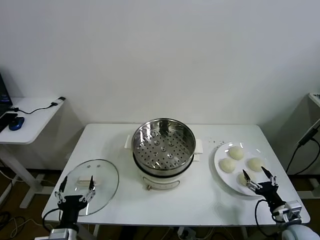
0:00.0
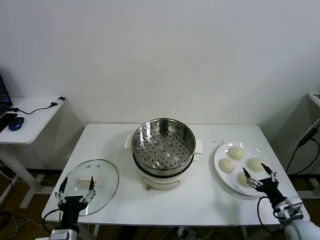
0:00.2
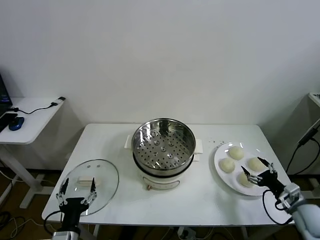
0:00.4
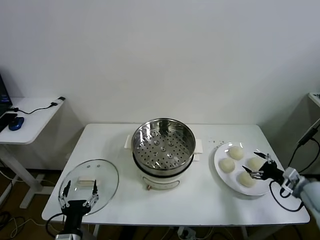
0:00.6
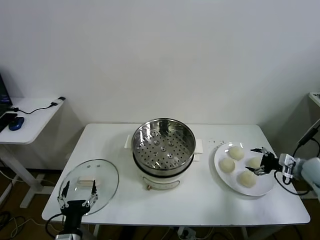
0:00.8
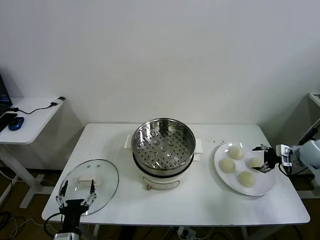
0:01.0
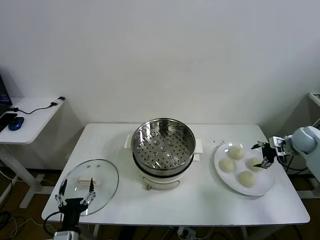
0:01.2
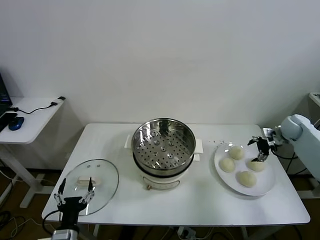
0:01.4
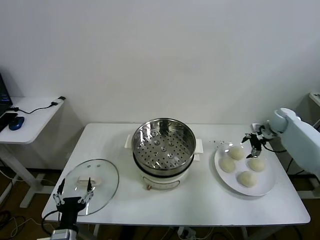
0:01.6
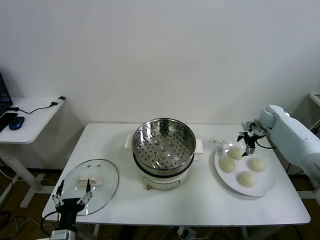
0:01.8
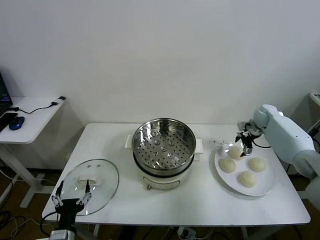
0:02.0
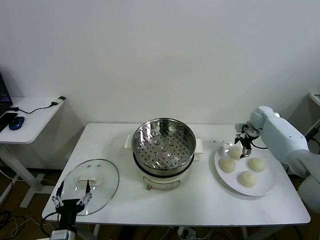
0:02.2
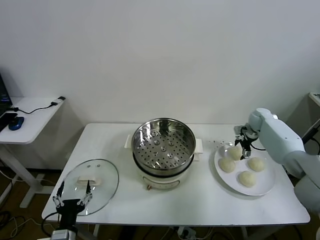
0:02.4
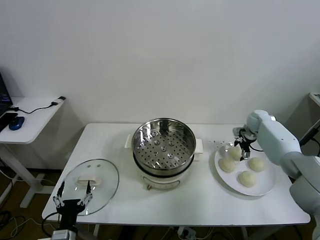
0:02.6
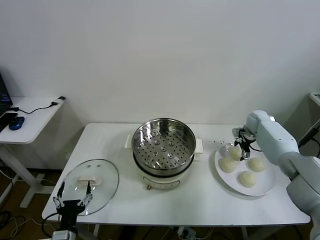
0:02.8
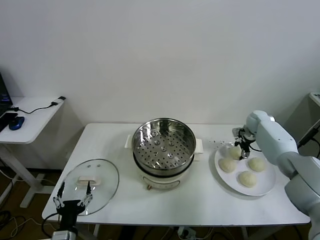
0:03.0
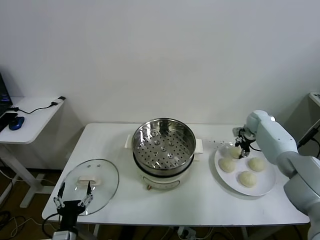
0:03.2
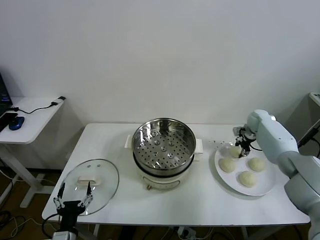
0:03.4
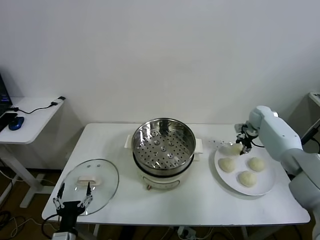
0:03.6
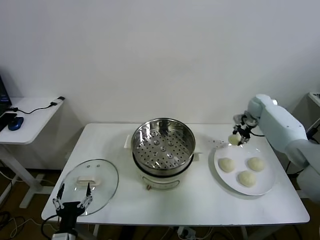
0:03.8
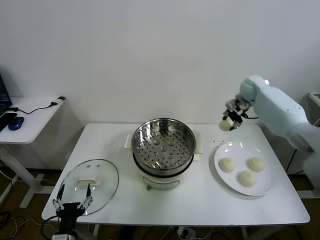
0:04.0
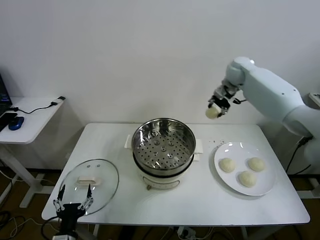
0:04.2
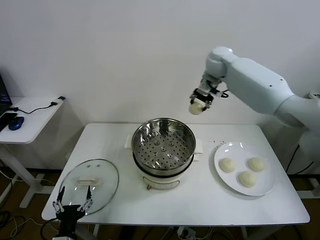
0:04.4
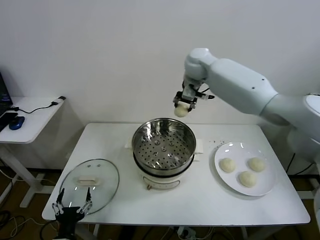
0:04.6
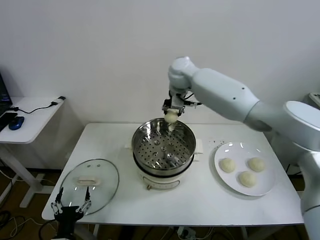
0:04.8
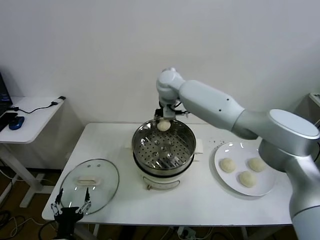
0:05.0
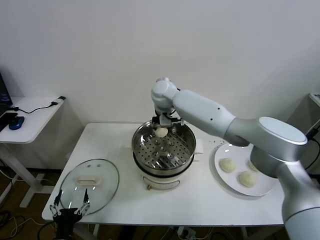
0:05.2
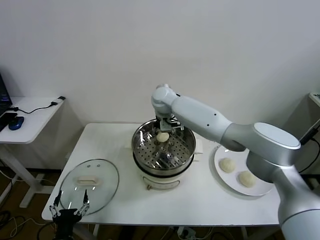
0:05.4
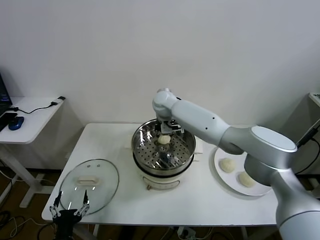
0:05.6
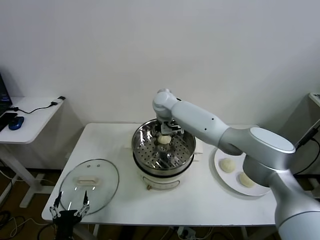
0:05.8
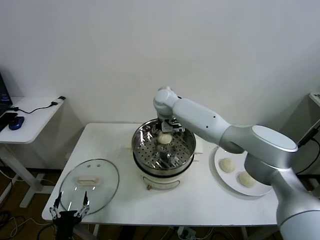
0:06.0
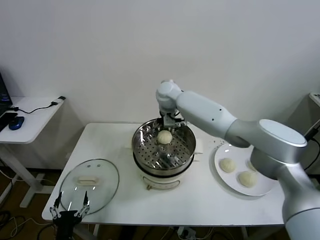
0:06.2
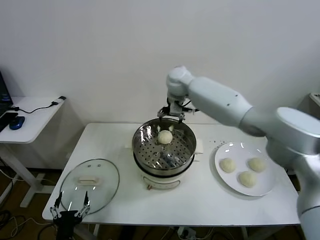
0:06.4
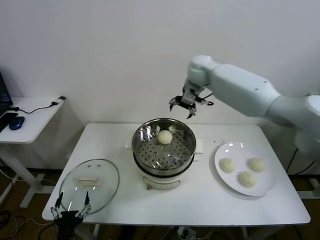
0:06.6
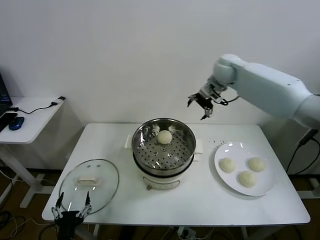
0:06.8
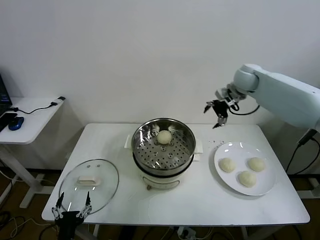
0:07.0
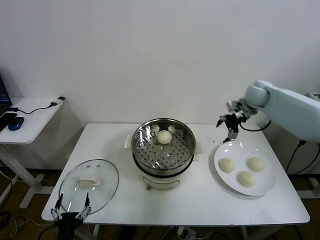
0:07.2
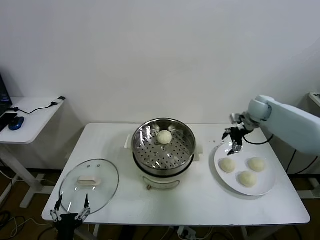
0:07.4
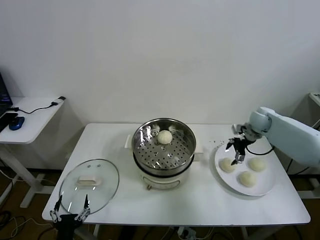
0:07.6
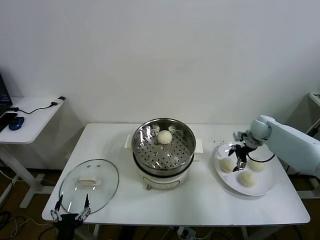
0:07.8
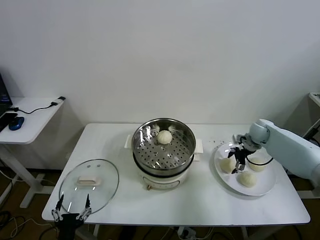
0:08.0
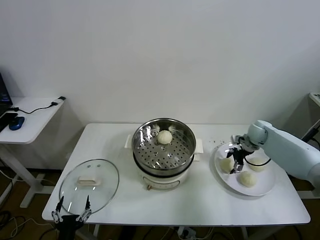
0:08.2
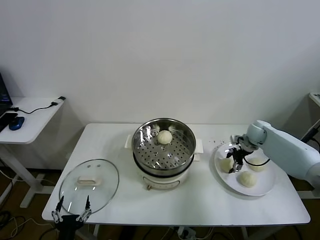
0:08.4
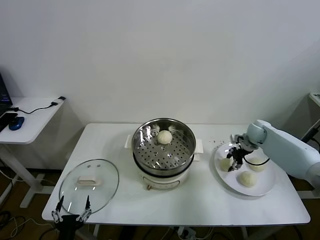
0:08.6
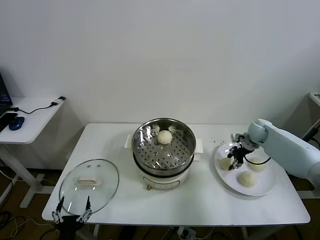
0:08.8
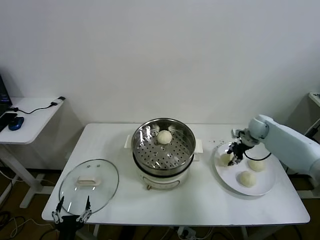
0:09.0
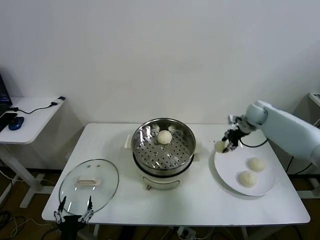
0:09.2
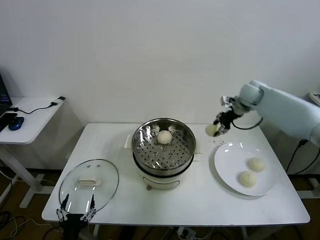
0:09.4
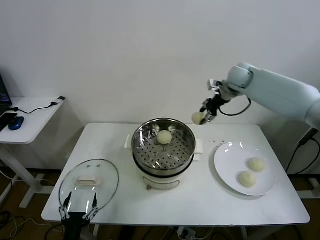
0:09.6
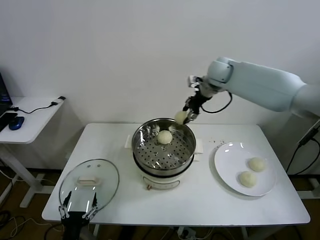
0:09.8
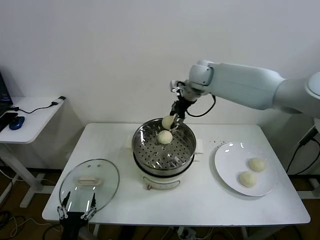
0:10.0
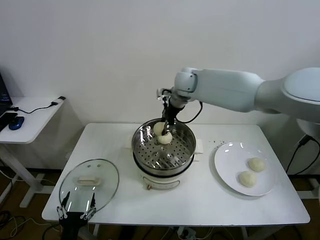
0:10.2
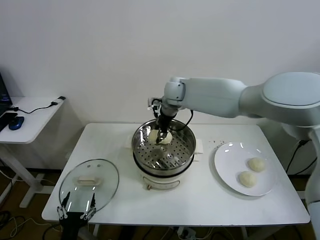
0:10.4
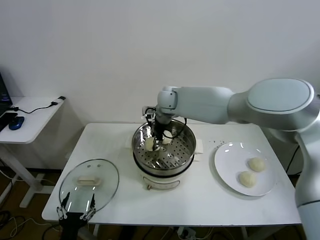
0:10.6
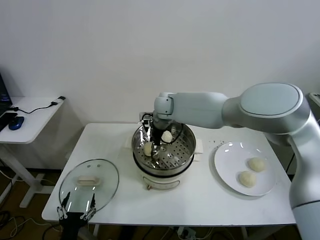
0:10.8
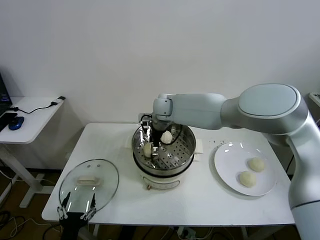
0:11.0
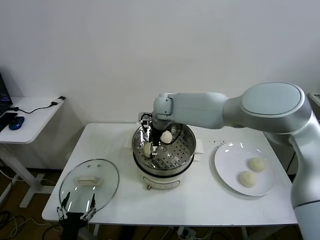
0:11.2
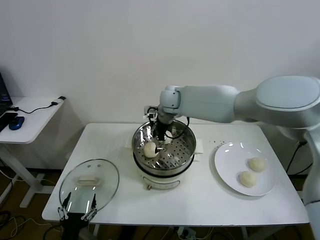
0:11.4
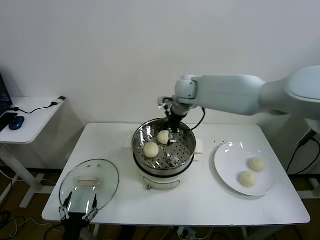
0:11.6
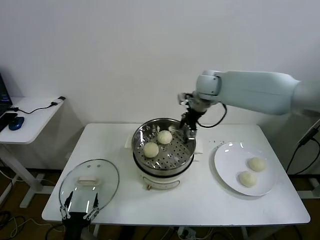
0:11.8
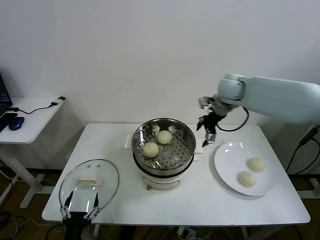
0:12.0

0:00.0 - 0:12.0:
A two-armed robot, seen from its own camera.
Task of the whole recording: take steamed baozi put them in steamer then cover it.
Step, 0:00.0 - 0:03.0: Grasp the baozi in the plate with right gripper.
Step, 0:03.4 - 0:05.8: Place the baozi on the steamer with right gripper.
Step, 0:06.0 - 0:08.6: Grasp the baozi in the plate with right gripper.
Step, 0:08.8 - 0:11.0: Place the baozi on the steamer with right gripper.
0:01.6 - 0:03.0: The right gripper moves approximately 5 cm, and closes up.
0:03.0 - 0:04.4: The right gripper goes about 40 cm upward and to the left.
0:04.4 - 0:06.0: The right gripper shifts about 20 cm to the left and downward, and opens its fingers.
0:06.0 - 0:07.6: The right gripper goes some 40 cm to the right.
0:07.6 - 0:09.0: The right gripper closes up.
0:09.0 - 0:10.4: The right gripper shifts approximately 35 cm to the left.
0:10.4 - 0:12.0: The right gripper moves to the right, some 20 cm, and opens.

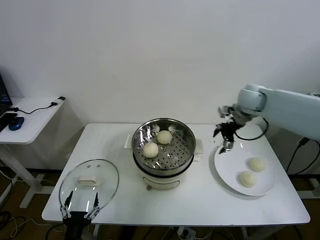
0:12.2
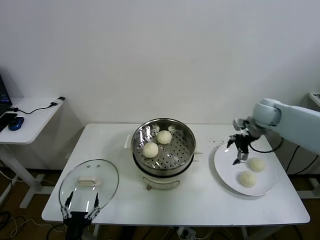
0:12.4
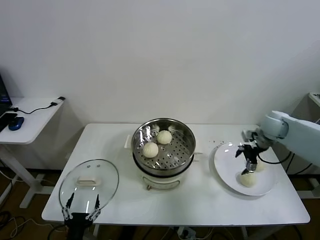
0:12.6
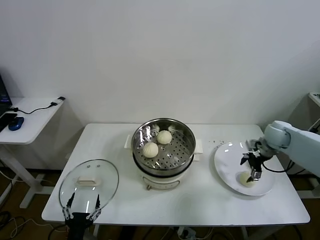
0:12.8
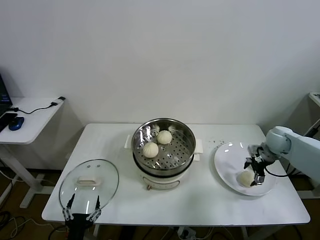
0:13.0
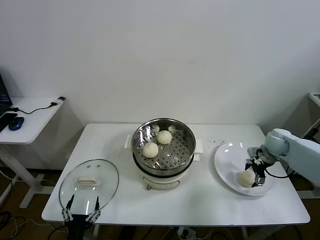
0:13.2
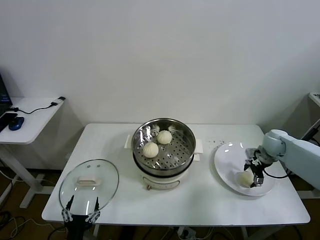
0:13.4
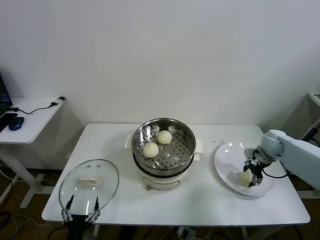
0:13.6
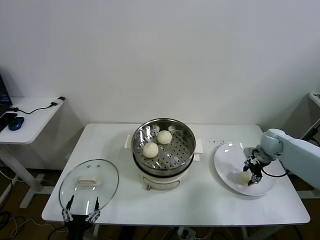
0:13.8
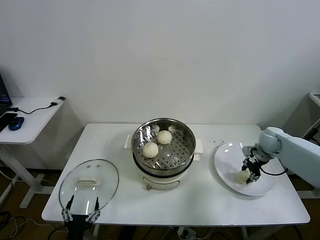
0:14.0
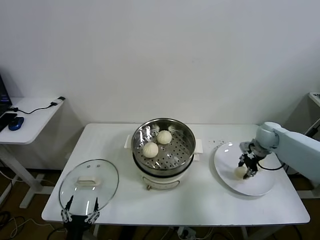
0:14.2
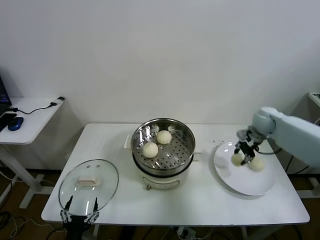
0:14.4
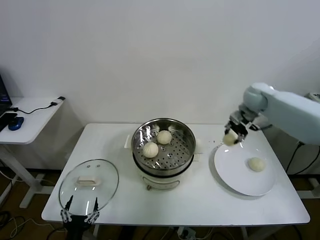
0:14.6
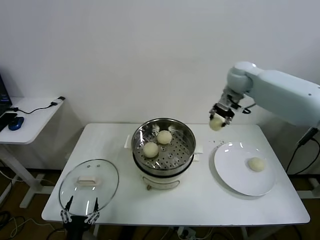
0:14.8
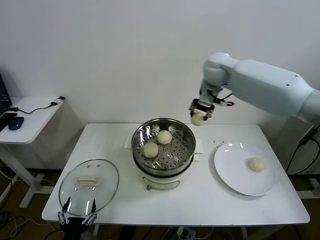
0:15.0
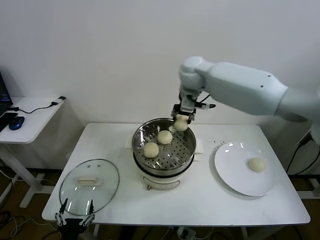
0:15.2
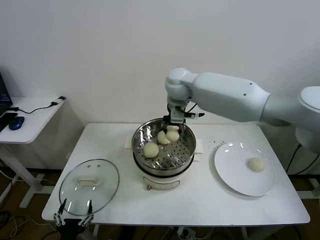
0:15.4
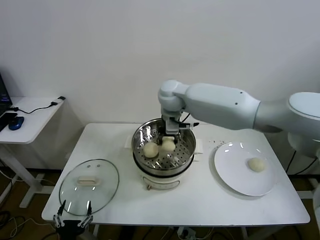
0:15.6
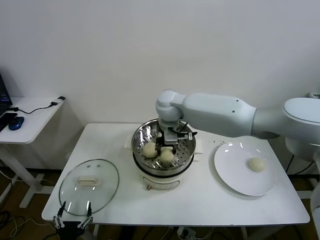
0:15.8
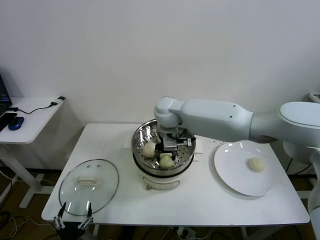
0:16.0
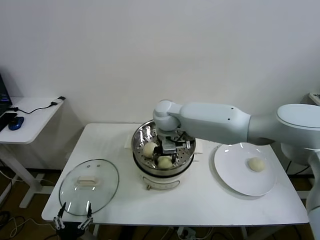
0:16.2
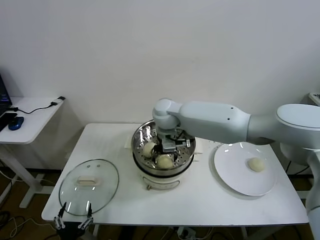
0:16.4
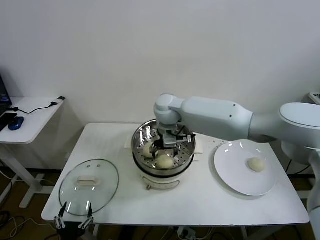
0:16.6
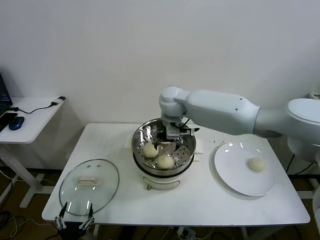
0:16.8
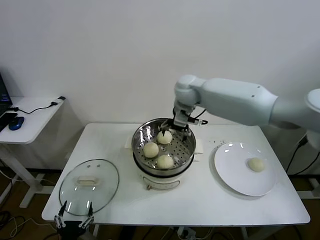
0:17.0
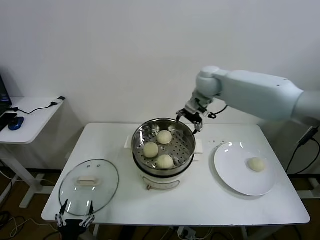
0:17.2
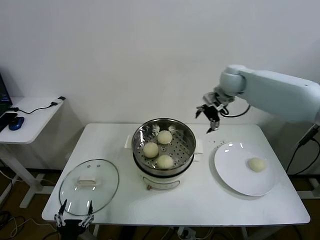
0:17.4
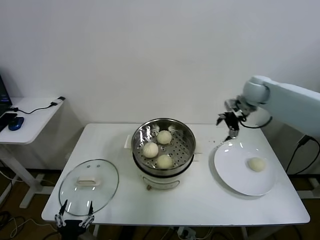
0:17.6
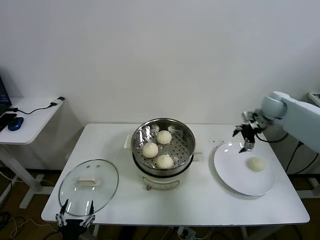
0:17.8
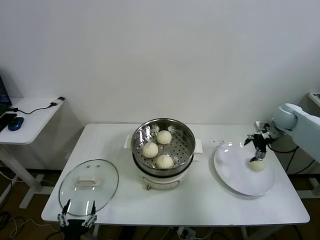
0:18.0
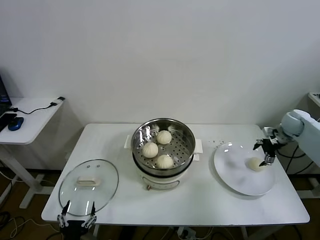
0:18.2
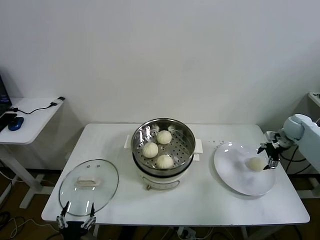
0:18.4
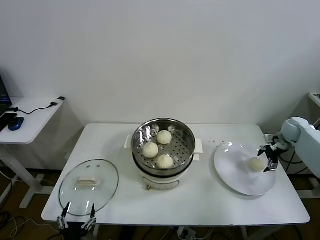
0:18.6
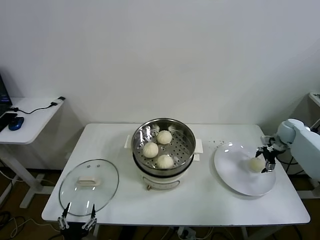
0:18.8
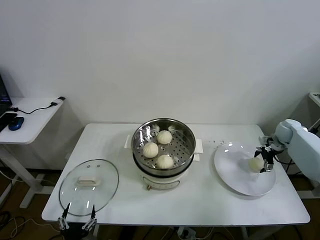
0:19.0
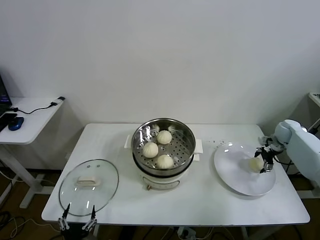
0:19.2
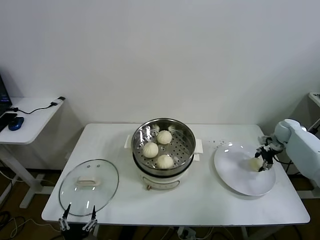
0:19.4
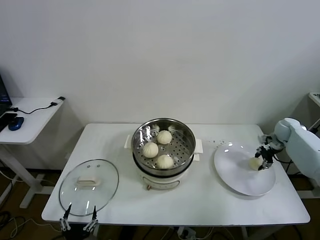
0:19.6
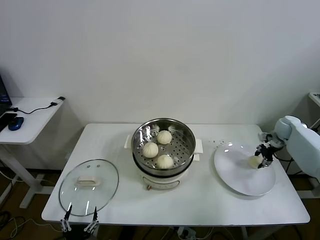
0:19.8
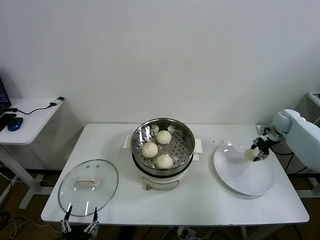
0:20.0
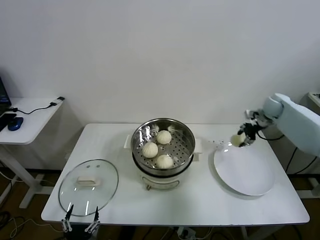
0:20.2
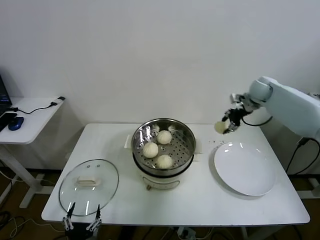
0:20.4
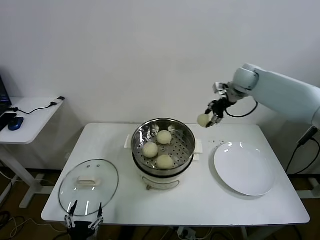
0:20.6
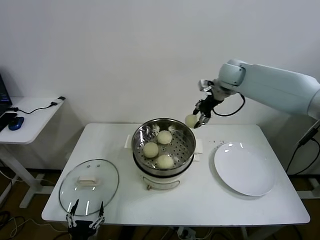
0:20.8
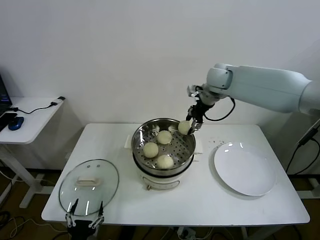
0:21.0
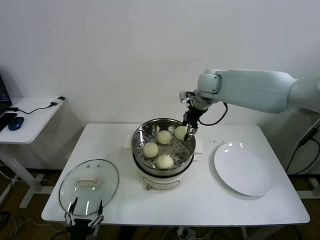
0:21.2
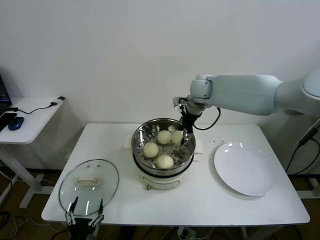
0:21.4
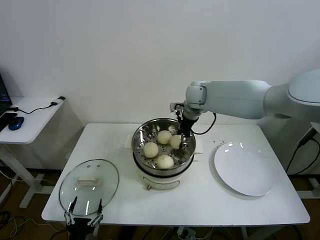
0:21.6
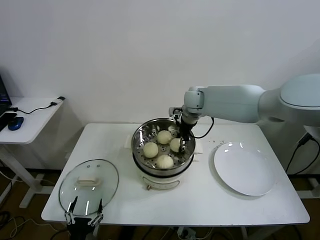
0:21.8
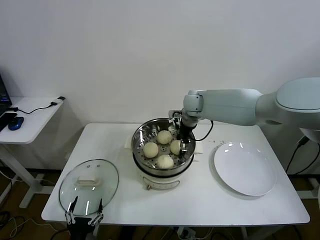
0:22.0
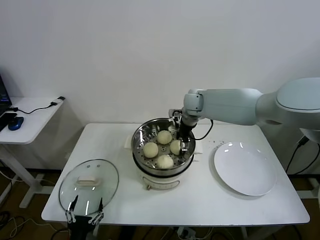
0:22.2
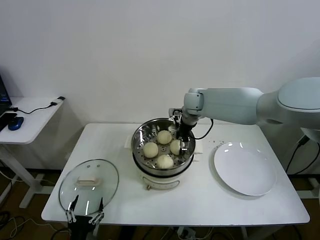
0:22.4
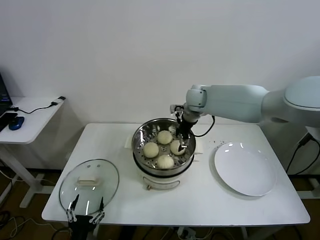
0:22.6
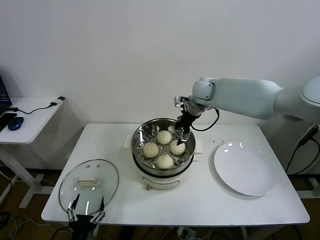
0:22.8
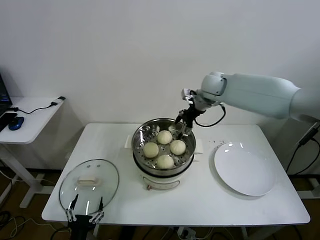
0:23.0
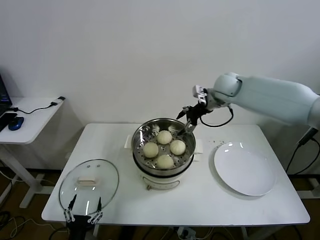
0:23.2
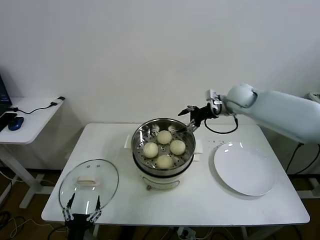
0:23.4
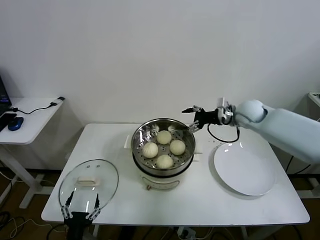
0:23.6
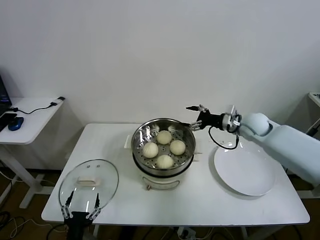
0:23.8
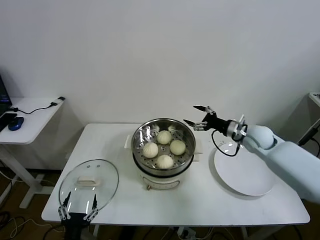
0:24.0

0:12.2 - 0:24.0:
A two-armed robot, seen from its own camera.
Task of the whole recording: take steamed baozi put them in steamer then cover it.
Step, 0:12.2 - 0:13.6: Grasp the baozi in the plate with right gripper.
Step, 0:13.8 - 0:16.4: Place the baozi on the steamer with right gripper.
Step, 0:16.6 - 0:19.6: Grasp the baozi in the plate with right gripper.
Step, 0:19.8 - 0:22.2: Place the baozi on the steamer with right gripper.
0:12.2 - 0:13.6: The right gripper heads downward and to the right, covering about 20 cm, and closes its fingers.
0:13.6 - 0:15.2: The right gripper shifts about 40 cm to the left and upward, and closes.
0:15.2 - 0:16.6: The right gripper travels downward and to the left by approximately 10 cm, and opens its fingers.
0:16.6 - 0:18.2: The right gripper travels to the right by some 50 cm.
0:18.2 - 0:19.6: The right gripper moves downward, some 5 cm, and closes up.
0:19.6 - 0:21.0: The right gripper shifts some 40 cm to the left and upward.
0:21.0 - 0:22.6: The right gripper is displaced downward and to the left by some 10 cm, and opens its fingers.
0:22.6 - 0:24.0: The right gripper goes about 25 cm to the right, backward and downward.
